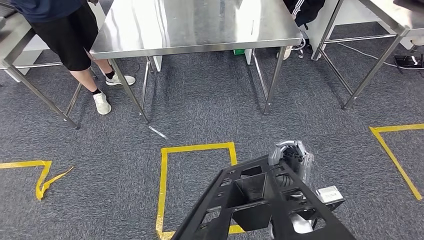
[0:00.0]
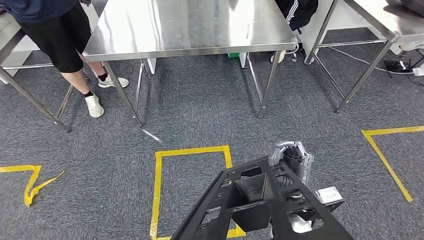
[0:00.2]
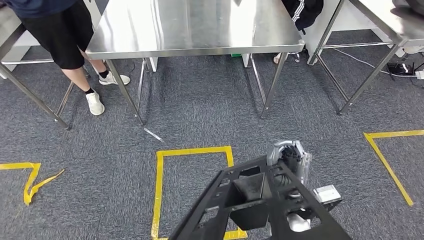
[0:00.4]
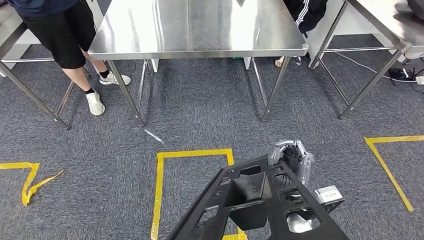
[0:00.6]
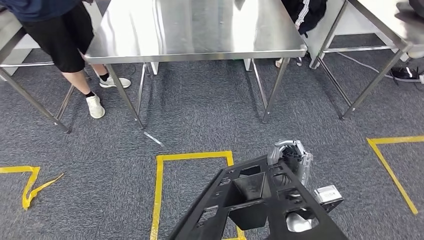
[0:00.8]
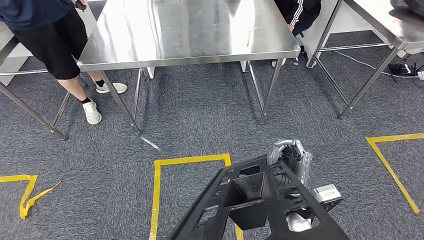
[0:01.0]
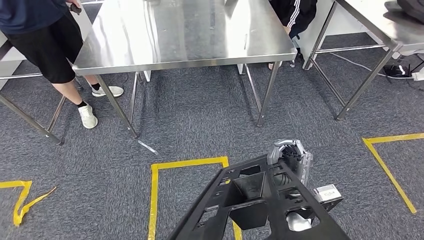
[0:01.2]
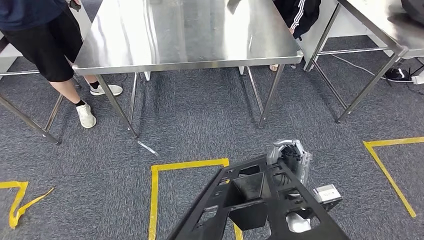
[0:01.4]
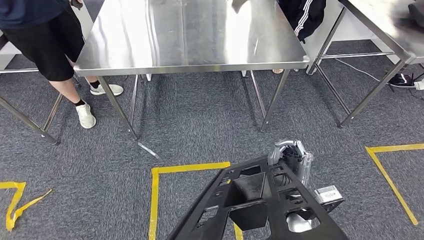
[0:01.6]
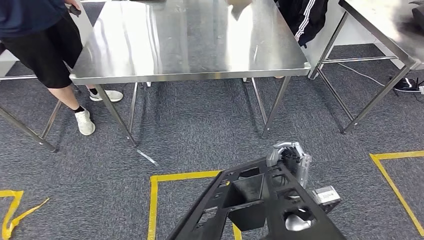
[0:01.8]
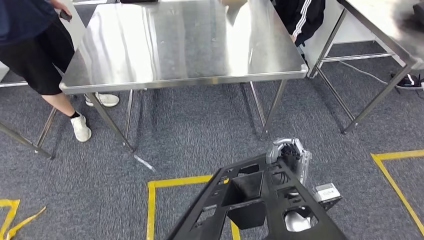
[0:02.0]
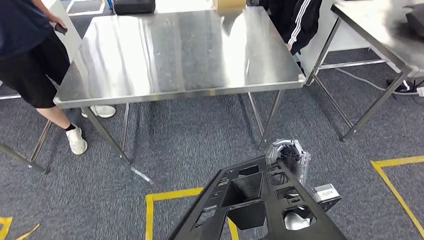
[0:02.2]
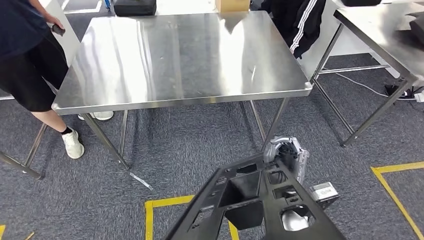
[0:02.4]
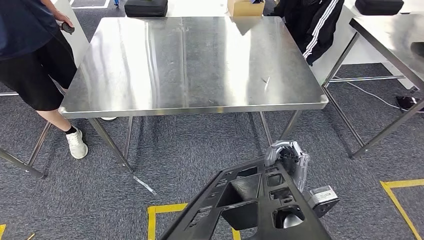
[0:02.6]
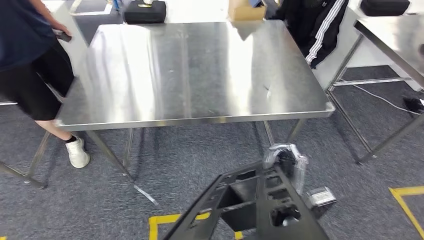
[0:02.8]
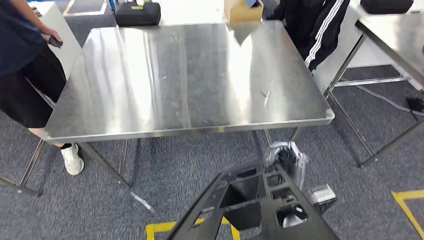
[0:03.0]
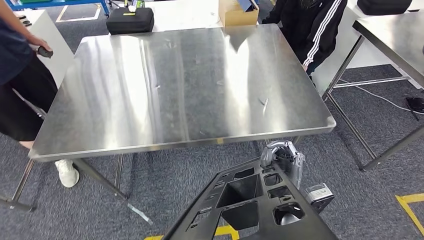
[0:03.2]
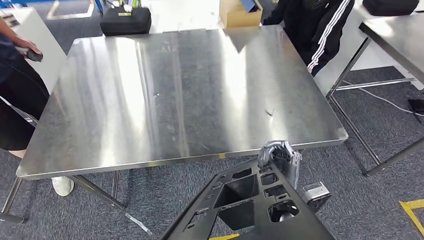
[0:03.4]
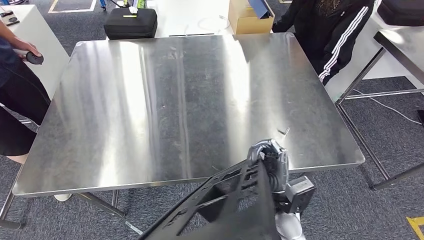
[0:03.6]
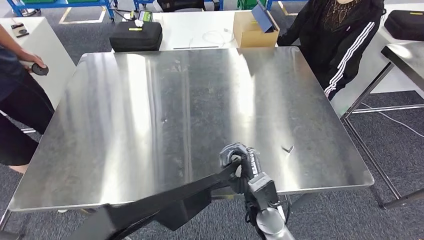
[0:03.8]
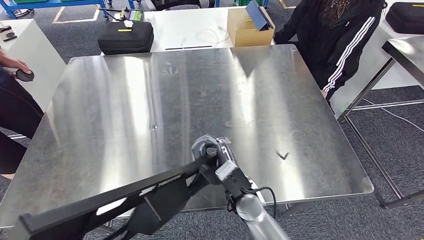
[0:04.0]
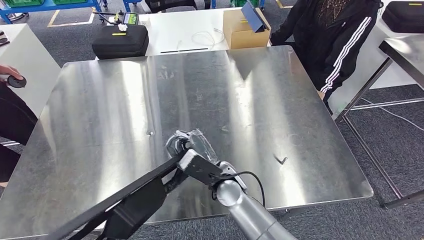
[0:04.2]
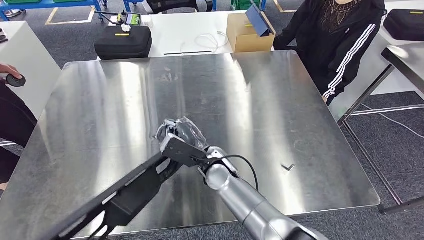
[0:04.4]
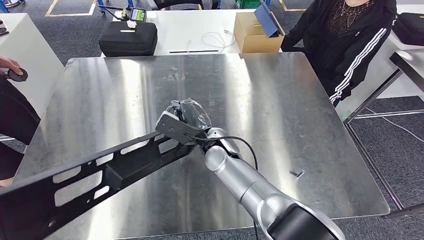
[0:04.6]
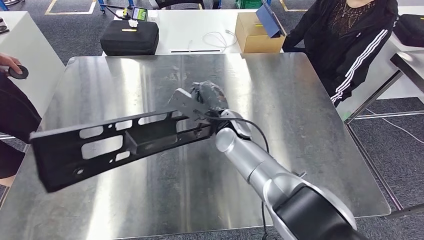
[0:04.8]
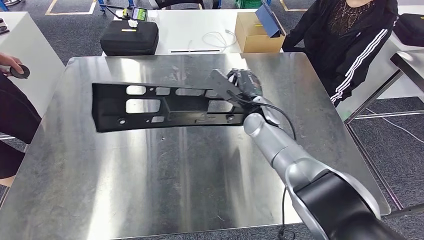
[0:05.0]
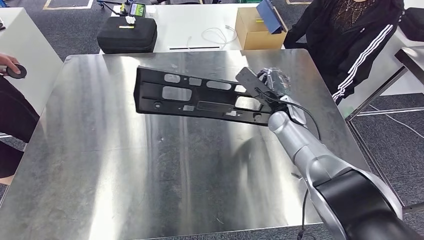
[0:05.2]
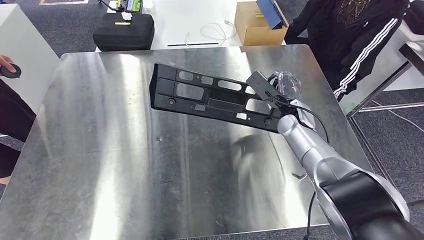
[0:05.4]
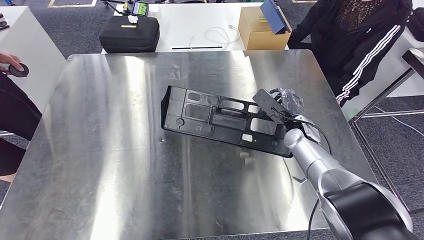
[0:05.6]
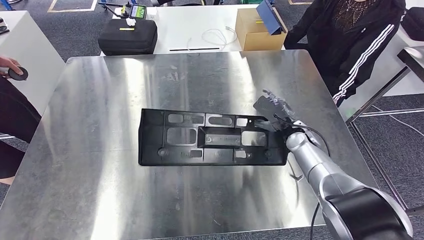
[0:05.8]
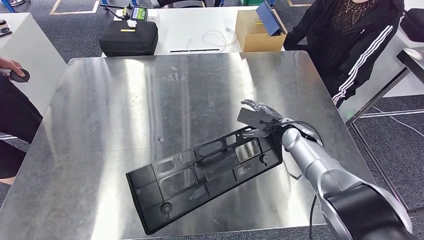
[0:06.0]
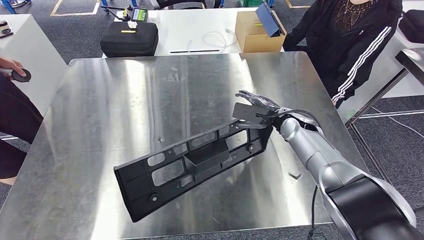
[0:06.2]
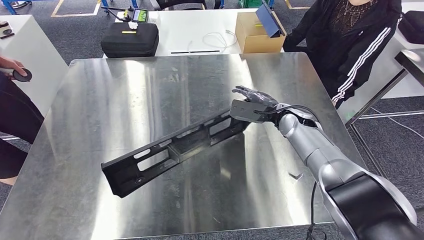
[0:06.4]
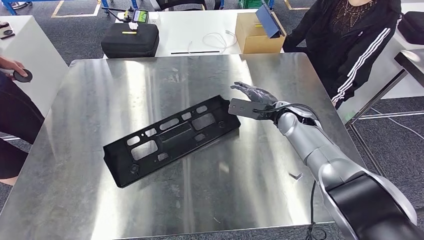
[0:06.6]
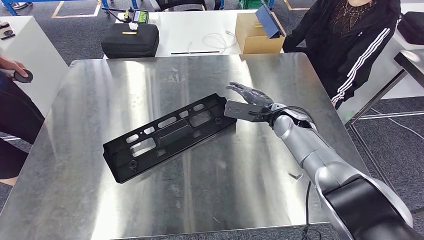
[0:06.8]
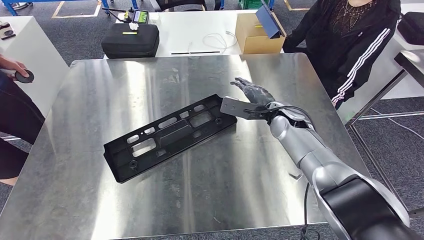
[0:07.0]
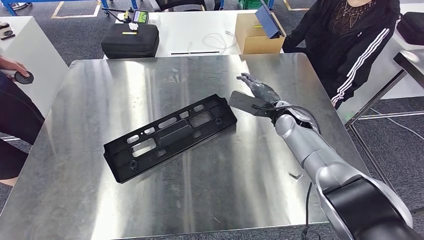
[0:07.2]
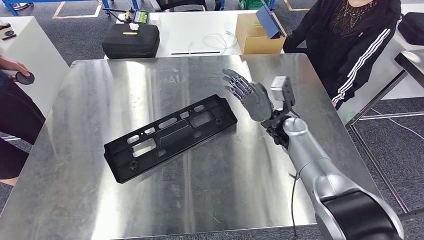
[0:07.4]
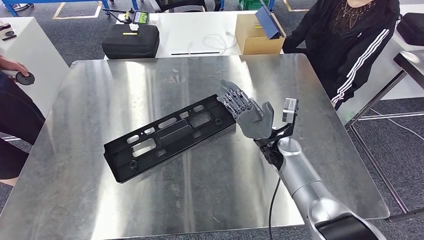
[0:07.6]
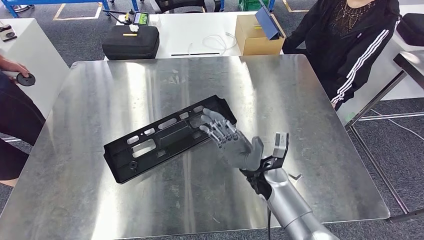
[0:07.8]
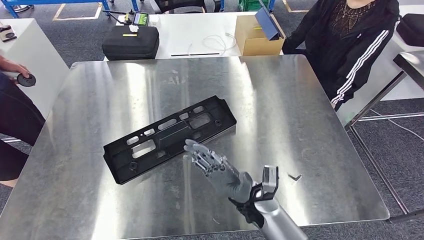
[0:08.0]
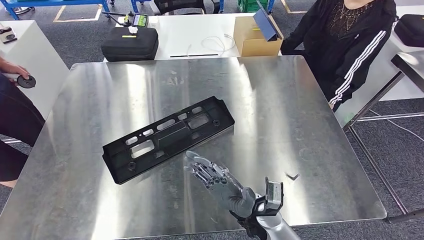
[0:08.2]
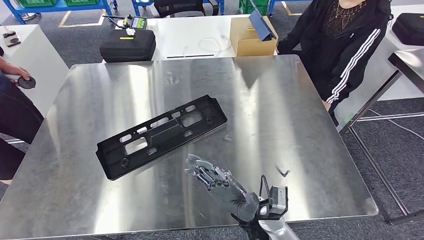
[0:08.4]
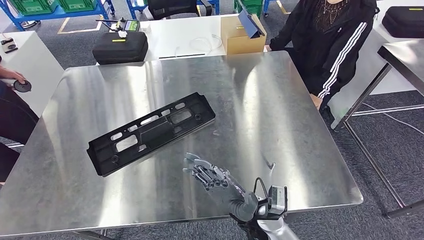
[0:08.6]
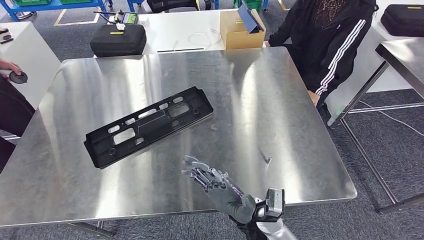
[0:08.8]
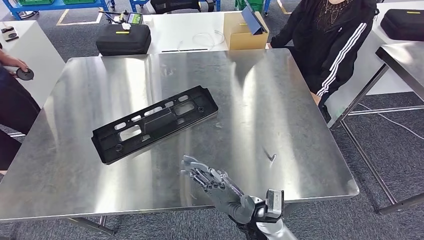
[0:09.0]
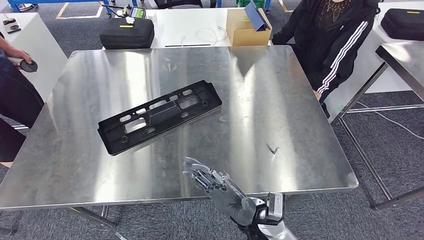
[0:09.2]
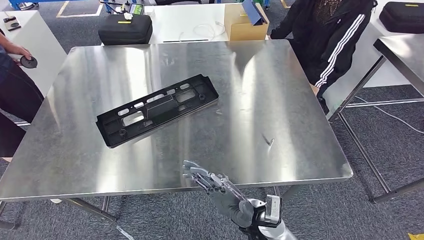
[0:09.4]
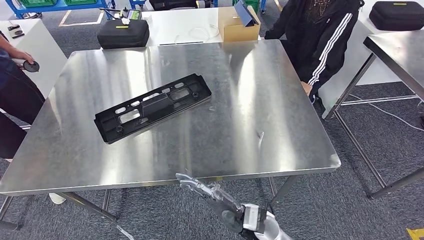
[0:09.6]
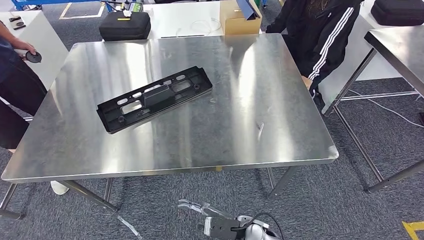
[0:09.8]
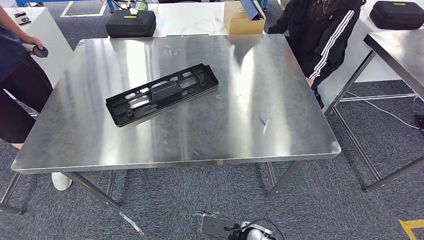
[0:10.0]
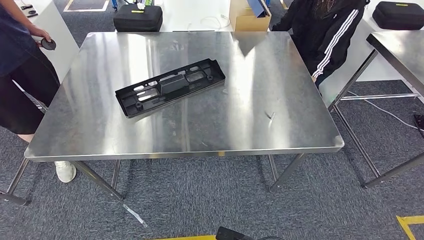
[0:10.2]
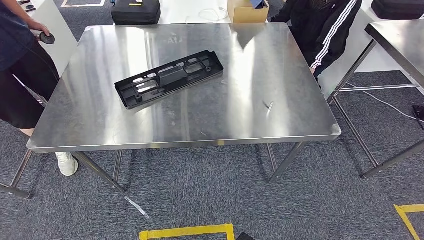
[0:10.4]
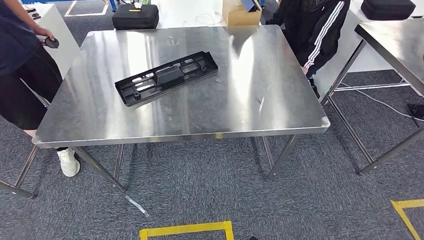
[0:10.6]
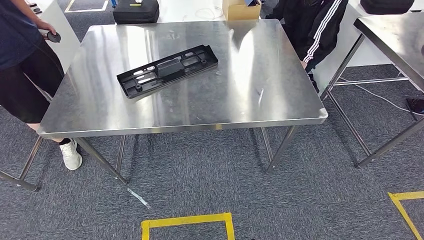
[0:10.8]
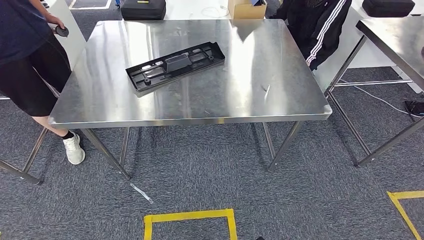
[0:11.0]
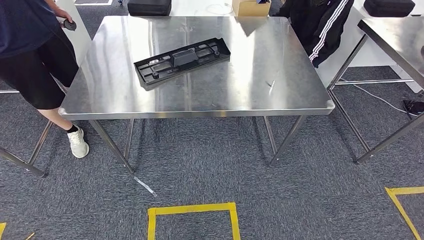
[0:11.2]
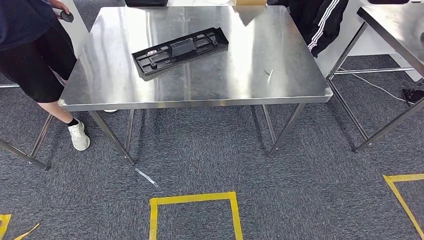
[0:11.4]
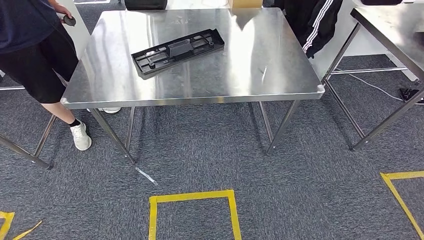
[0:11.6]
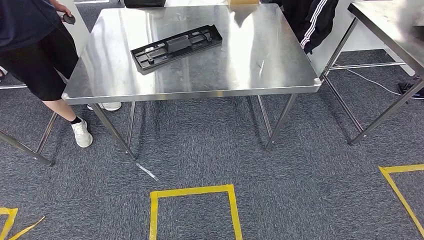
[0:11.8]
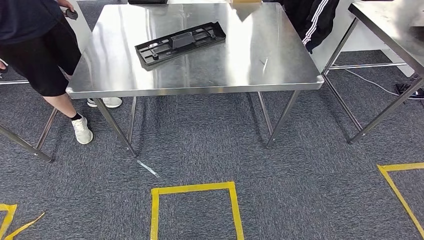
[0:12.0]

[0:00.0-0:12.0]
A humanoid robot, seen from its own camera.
Step, 0:00.0 to 0:02.8: Move the large material to the workbench.

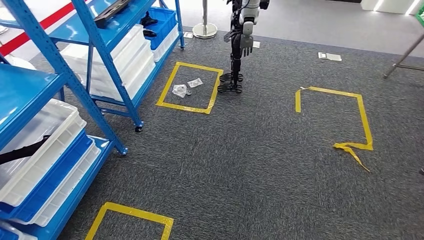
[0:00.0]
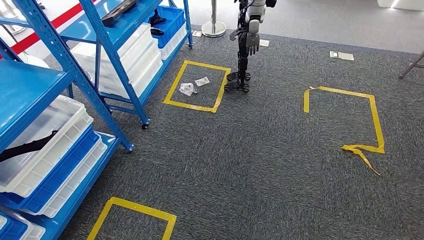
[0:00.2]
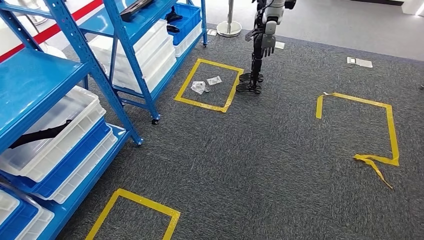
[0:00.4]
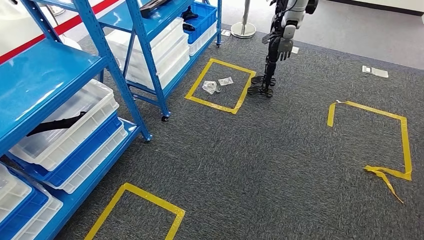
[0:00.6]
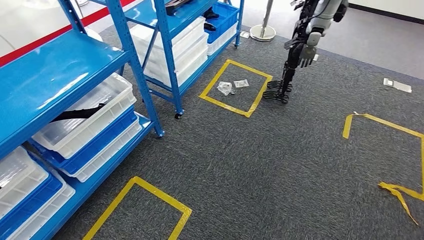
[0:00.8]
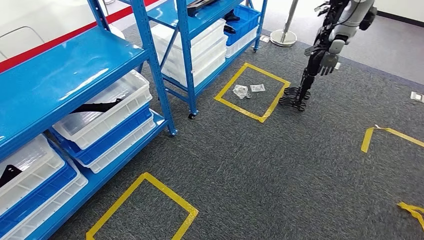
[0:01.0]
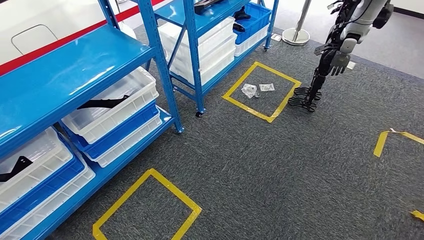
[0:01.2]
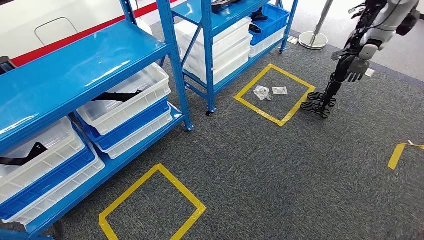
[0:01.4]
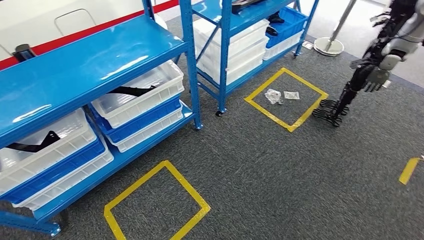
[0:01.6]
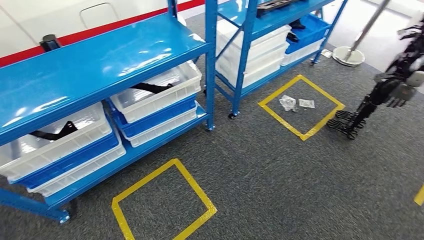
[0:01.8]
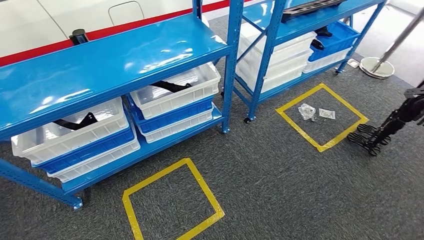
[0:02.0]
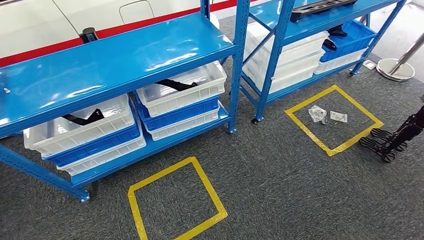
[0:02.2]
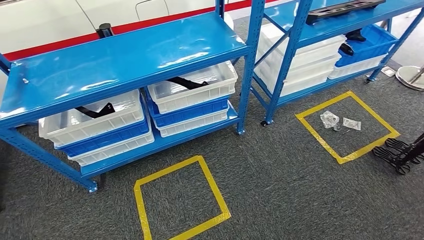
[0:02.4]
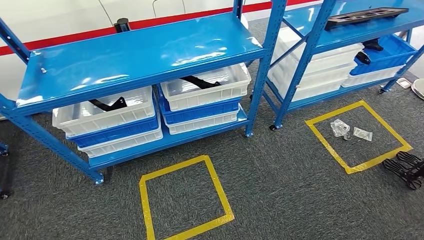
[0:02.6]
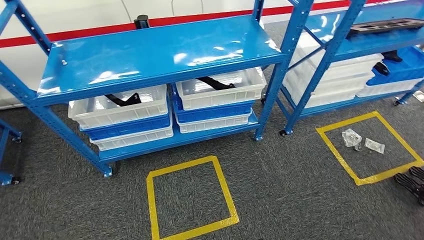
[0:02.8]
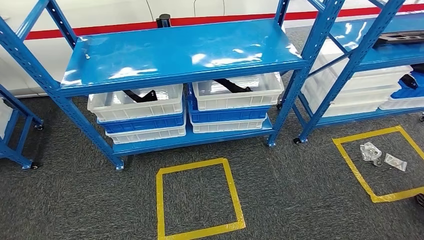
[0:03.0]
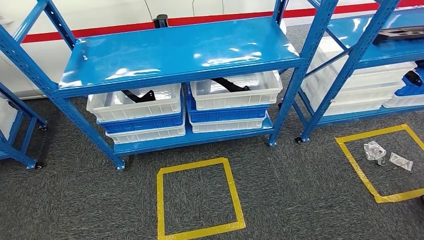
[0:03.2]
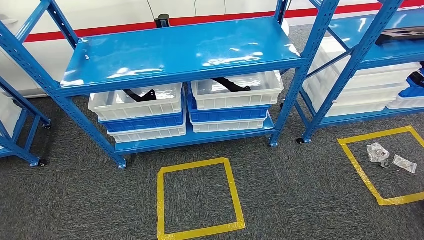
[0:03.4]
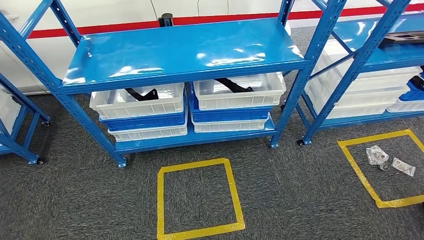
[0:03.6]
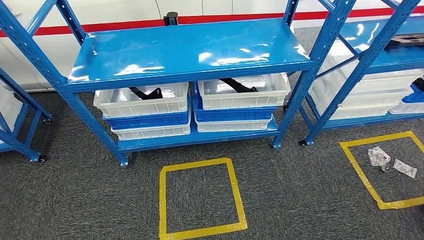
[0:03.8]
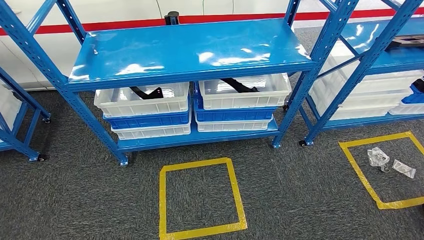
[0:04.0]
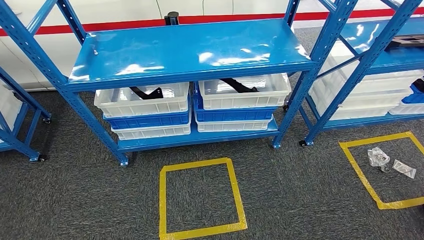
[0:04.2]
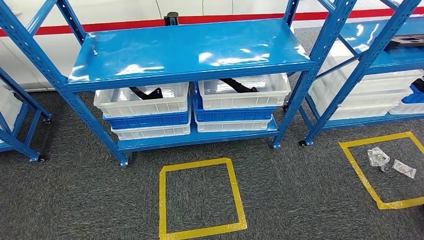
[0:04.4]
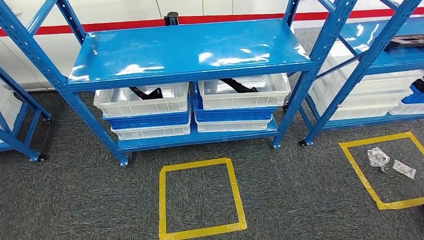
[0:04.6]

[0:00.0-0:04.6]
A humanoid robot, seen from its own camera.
Step, 0:00.0 to 0:04.6: Return to the initial position at the shelf.
